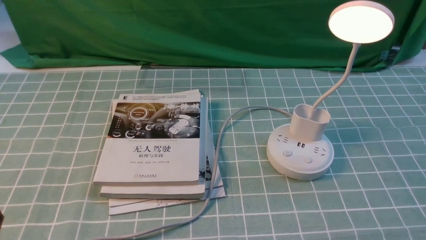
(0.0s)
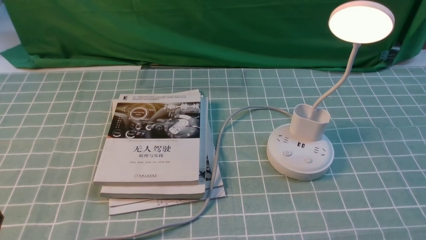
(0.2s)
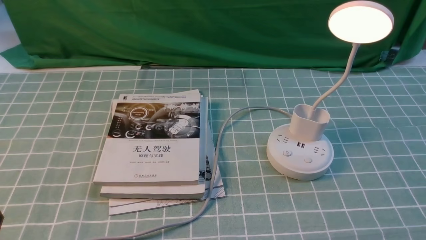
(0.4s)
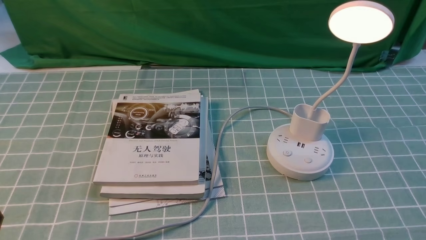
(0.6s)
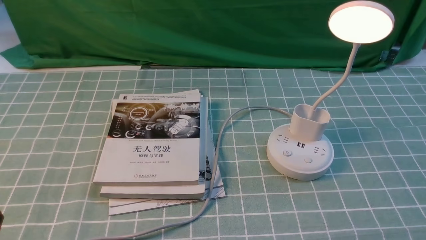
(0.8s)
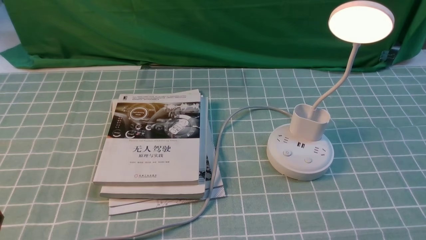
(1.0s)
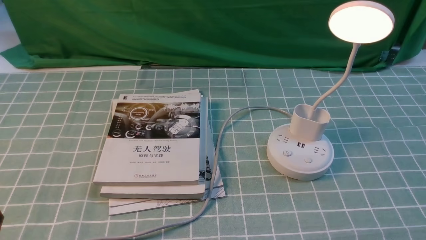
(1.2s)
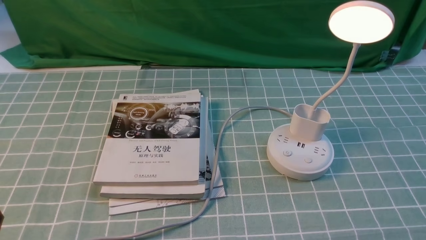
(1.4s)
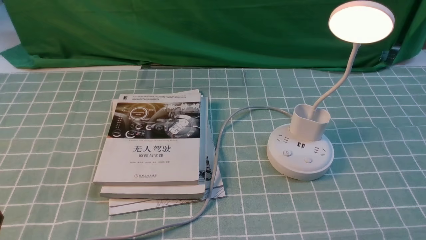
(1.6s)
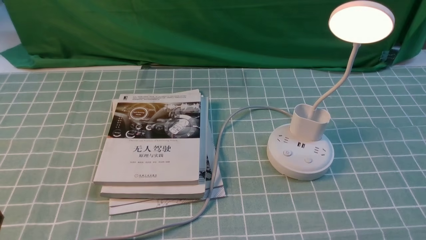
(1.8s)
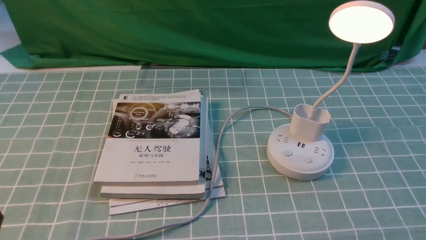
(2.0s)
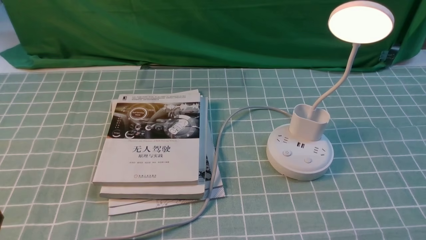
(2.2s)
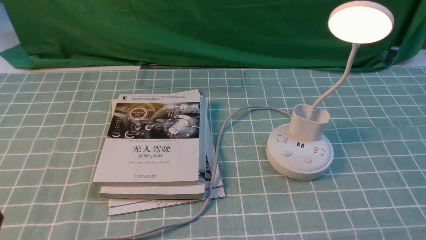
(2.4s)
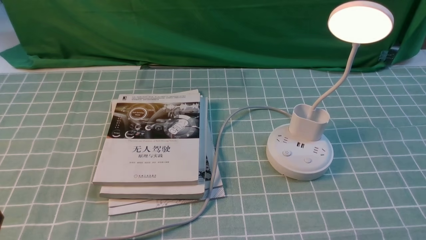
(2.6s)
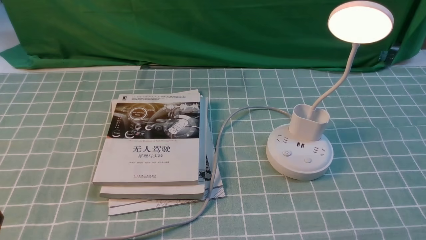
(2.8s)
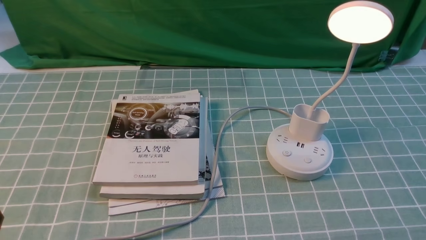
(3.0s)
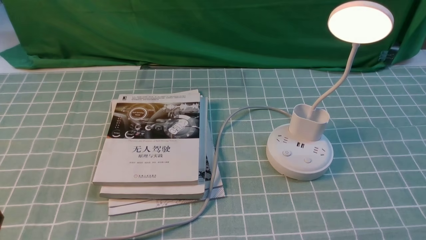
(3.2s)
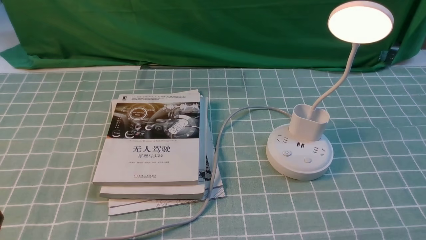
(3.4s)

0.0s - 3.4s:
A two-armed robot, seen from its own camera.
1.6s - 3.4s: The two grippers keep their place.

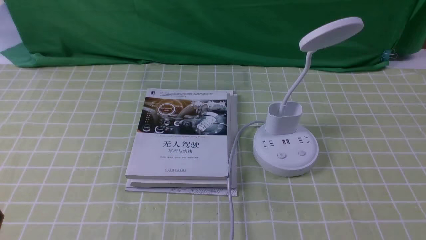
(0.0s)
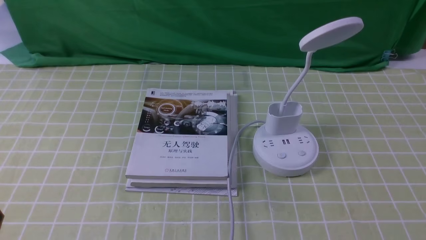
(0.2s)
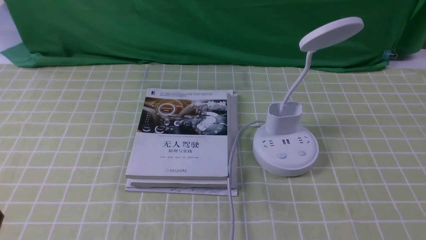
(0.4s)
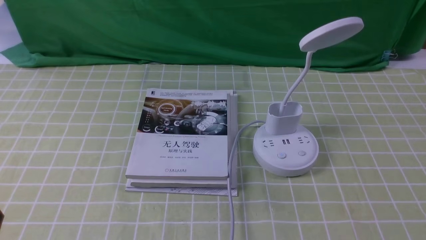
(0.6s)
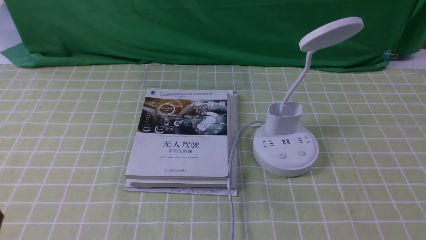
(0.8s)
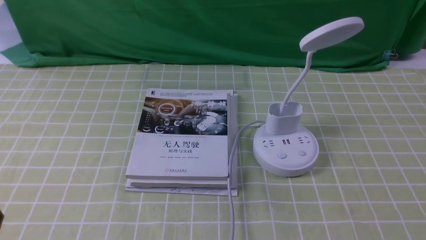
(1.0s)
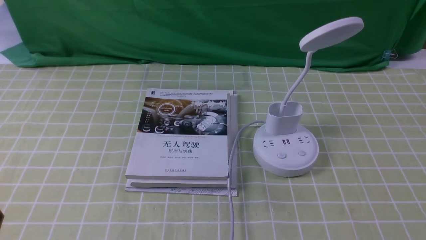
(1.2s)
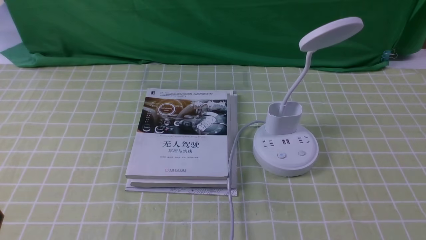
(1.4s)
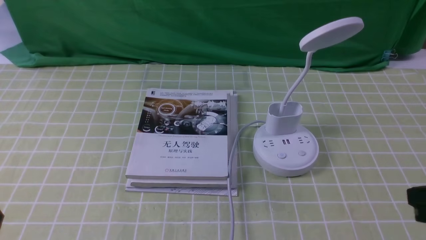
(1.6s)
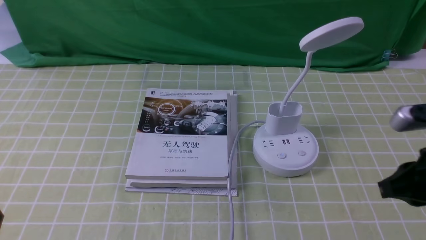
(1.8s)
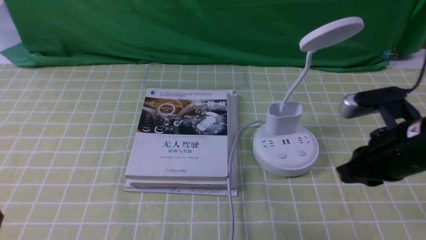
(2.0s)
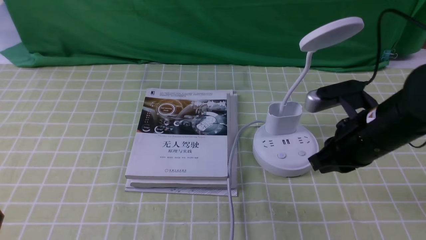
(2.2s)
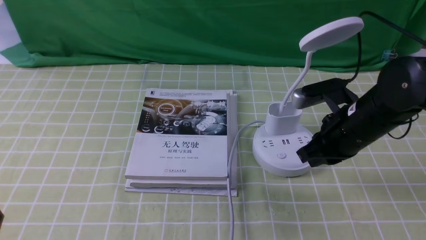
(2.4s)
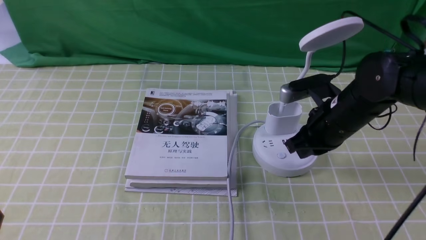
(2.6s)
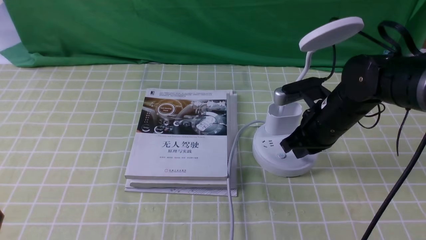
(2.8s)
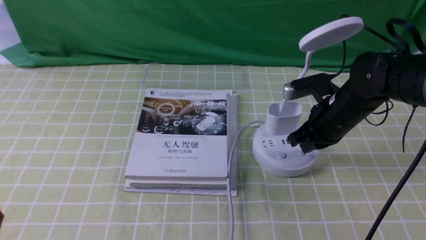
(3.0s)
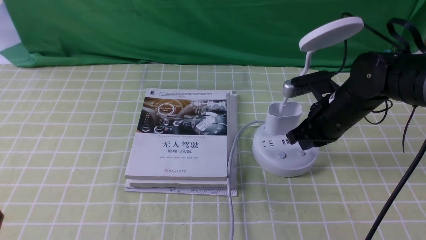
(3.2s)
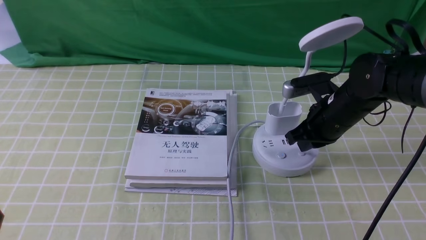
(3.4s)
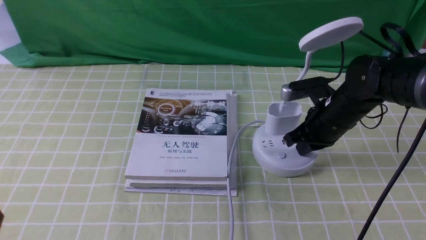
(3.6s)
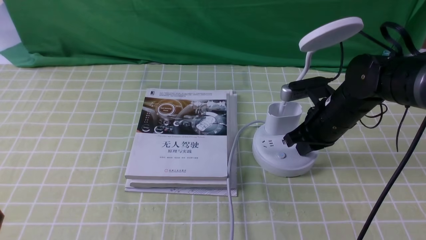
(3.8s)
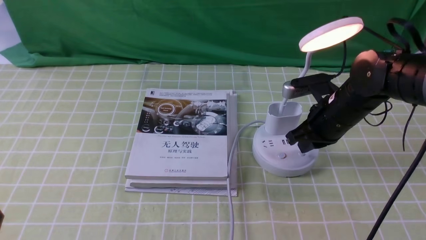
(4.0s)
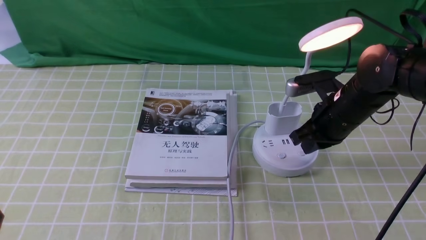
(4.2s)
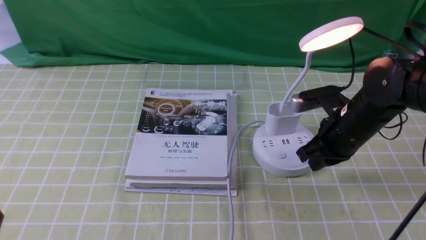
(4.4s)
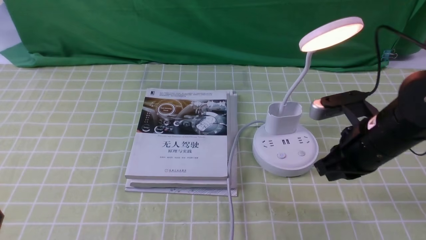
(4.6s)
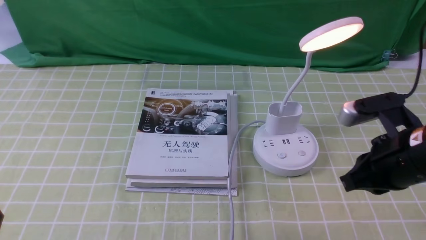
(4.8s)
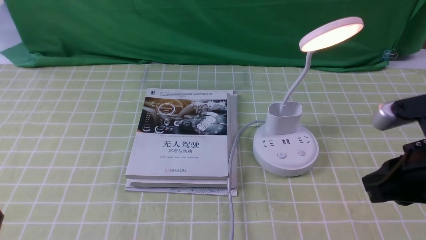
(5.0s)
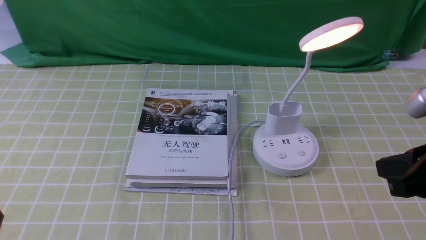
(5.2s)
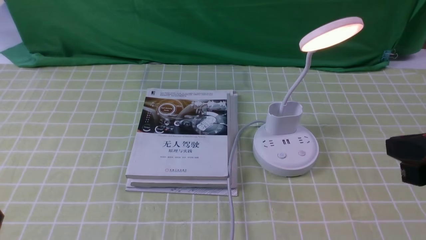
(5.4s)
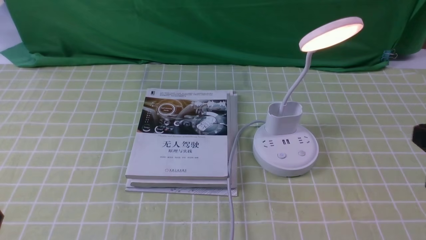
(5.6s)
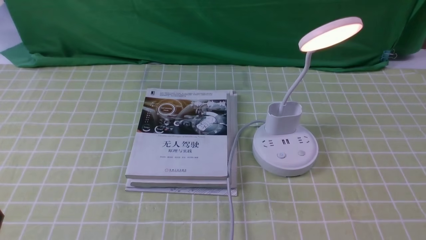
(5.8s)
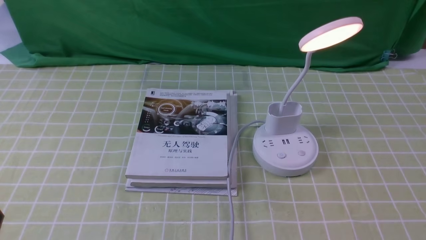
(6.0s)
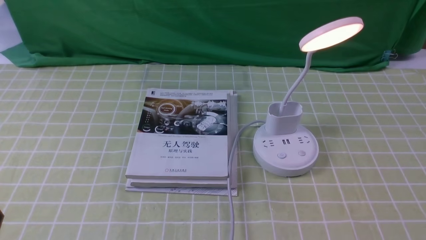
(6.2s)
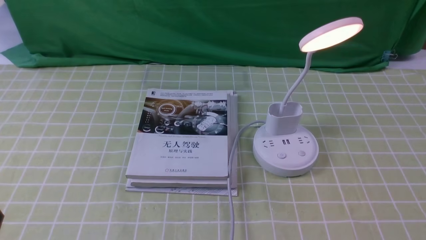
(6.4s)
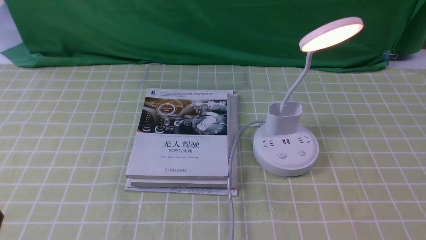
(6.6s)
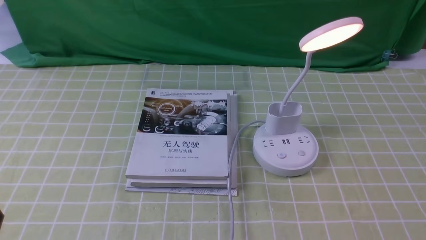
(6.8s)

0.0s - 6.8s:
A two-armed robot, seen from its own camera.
Step, 0.0s - 4.2s: use the right arm to press the button switch on the lamp holder.
1.4s - 2.8s: The right gripper goes about 30 cm forward and to the left.
2.8s - 4.0s: The grippers make only small movements.
4.0s - 5.4s: The right gripper heads backward and upward, covering some 25 cm.
5.4s - 6.8s: The right gripper moves downward and backward, roughly 15 cm.
